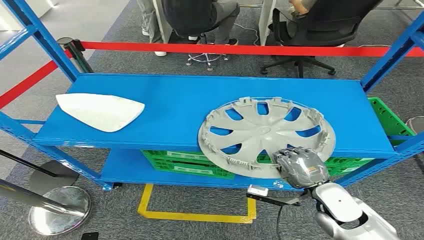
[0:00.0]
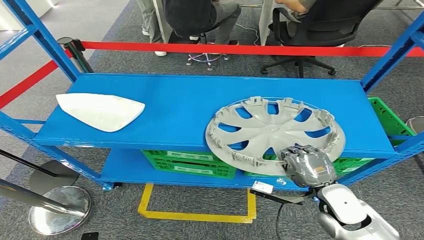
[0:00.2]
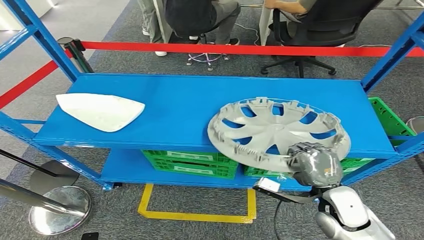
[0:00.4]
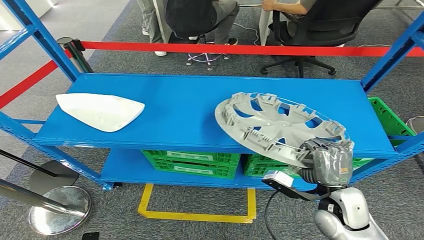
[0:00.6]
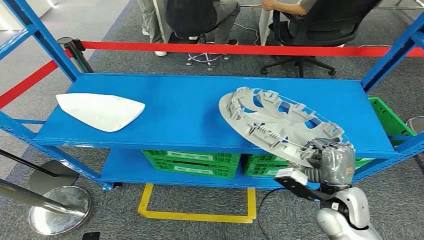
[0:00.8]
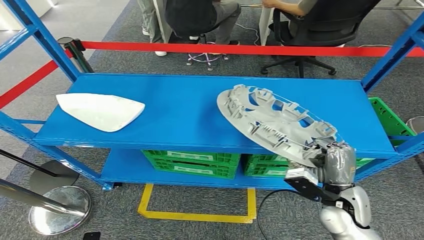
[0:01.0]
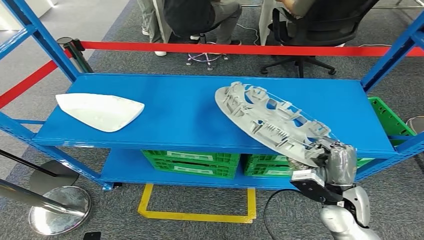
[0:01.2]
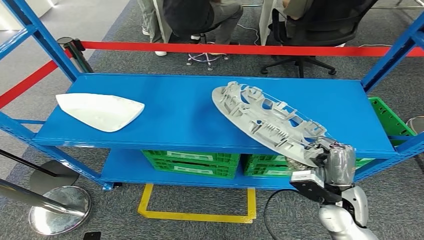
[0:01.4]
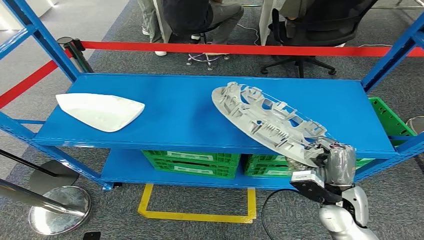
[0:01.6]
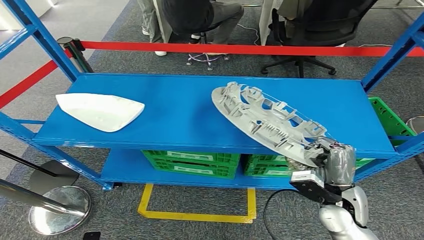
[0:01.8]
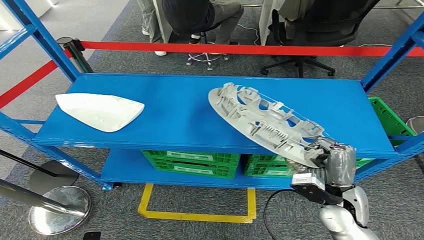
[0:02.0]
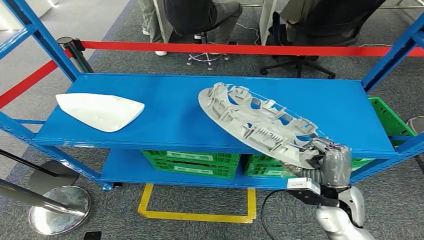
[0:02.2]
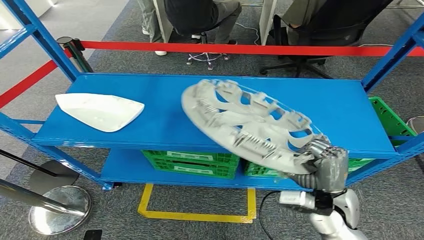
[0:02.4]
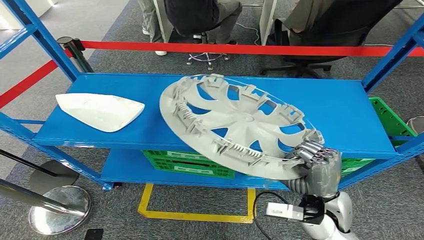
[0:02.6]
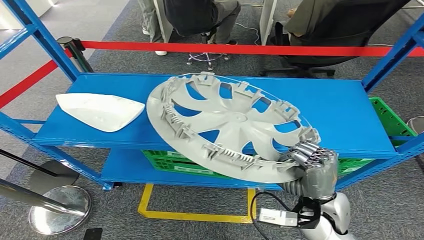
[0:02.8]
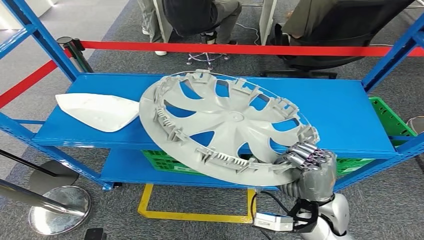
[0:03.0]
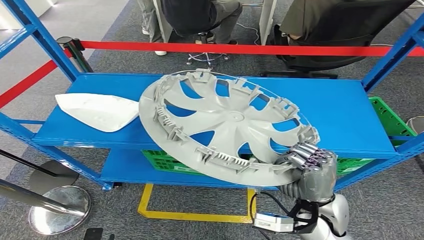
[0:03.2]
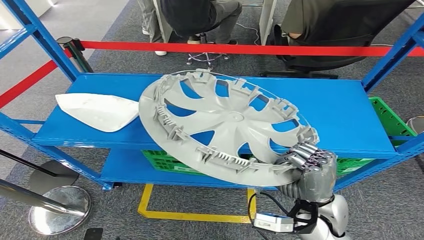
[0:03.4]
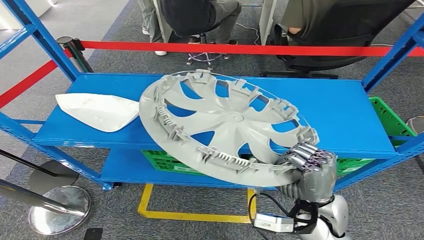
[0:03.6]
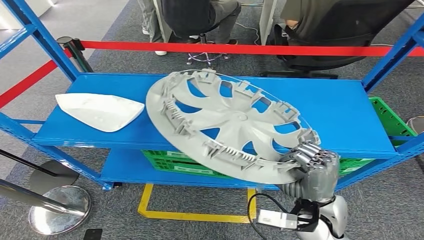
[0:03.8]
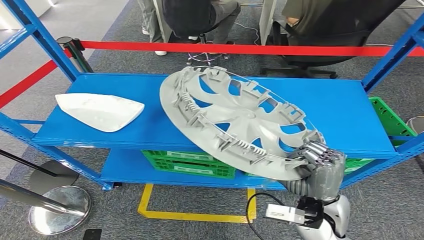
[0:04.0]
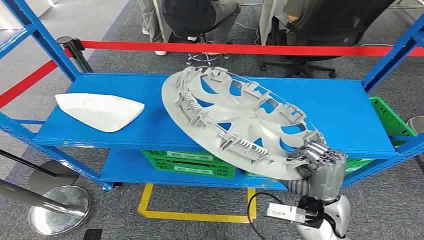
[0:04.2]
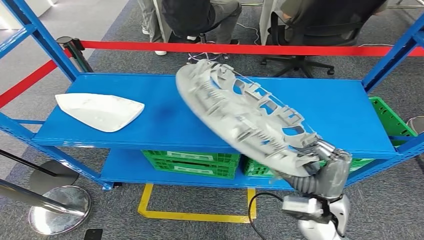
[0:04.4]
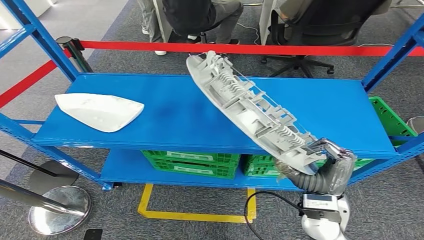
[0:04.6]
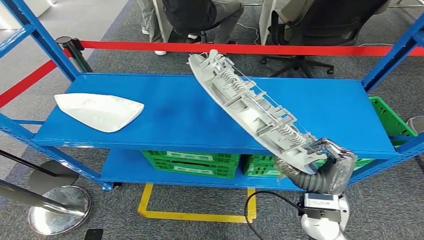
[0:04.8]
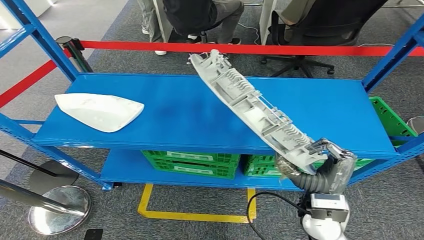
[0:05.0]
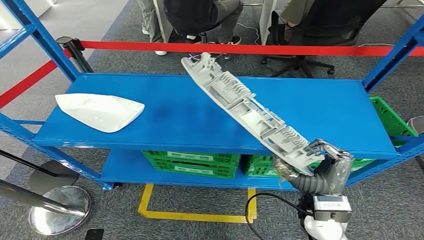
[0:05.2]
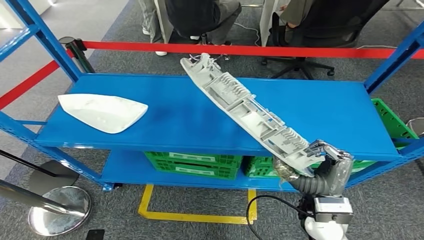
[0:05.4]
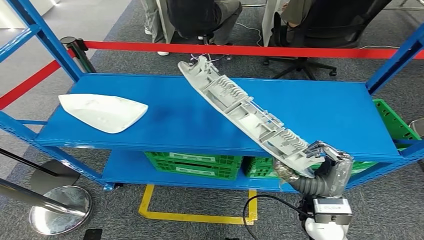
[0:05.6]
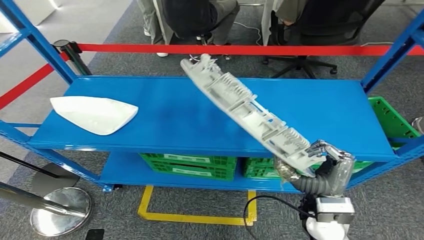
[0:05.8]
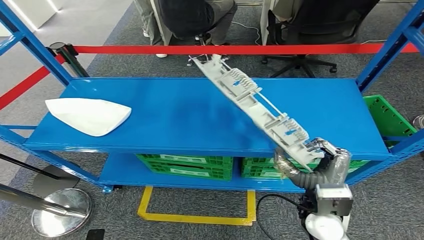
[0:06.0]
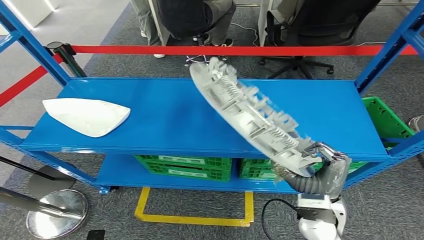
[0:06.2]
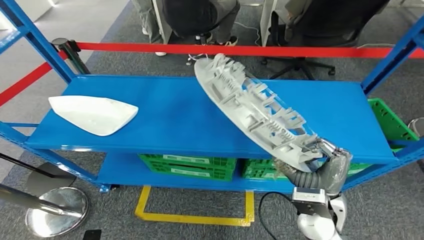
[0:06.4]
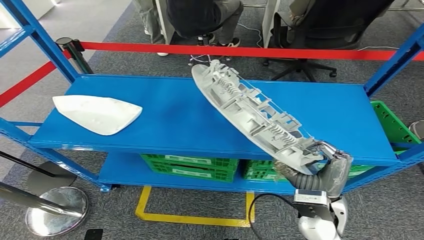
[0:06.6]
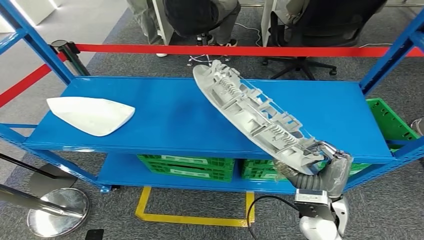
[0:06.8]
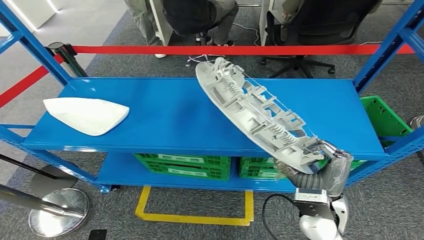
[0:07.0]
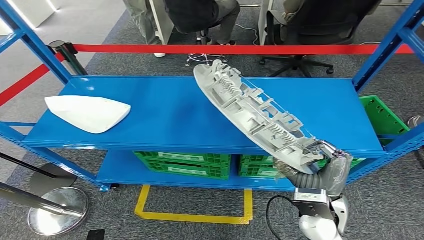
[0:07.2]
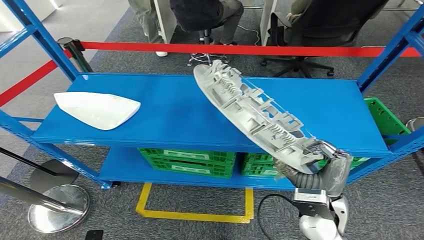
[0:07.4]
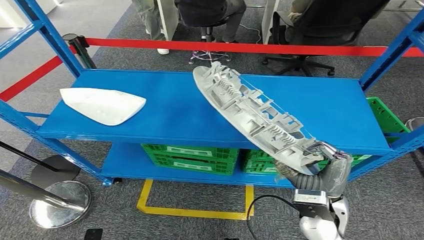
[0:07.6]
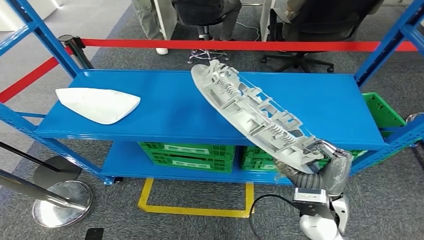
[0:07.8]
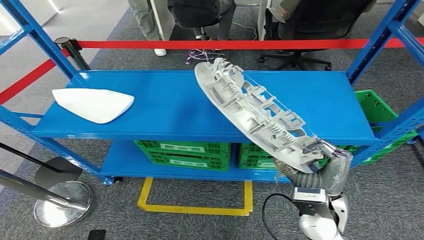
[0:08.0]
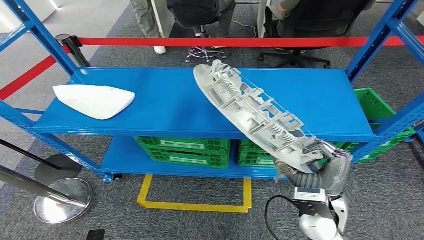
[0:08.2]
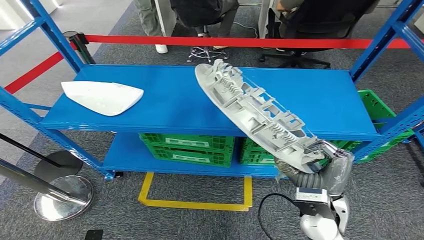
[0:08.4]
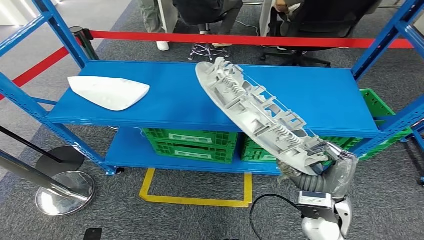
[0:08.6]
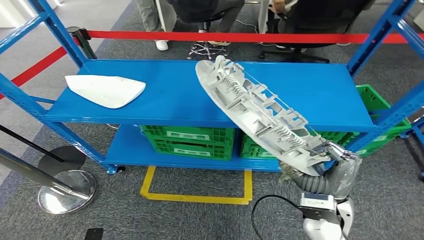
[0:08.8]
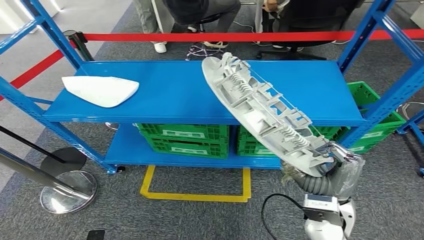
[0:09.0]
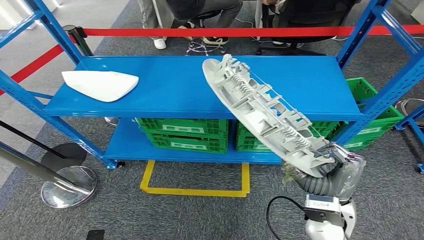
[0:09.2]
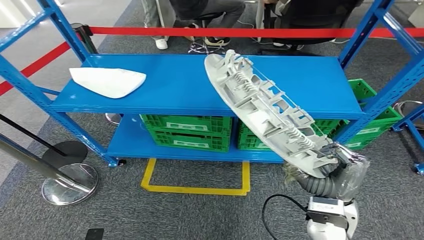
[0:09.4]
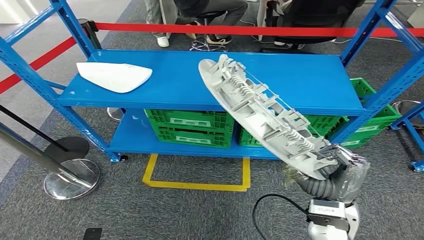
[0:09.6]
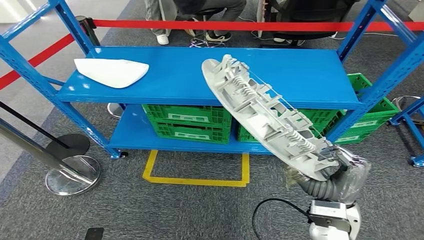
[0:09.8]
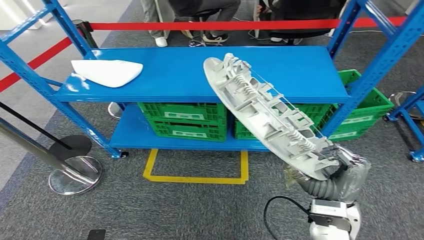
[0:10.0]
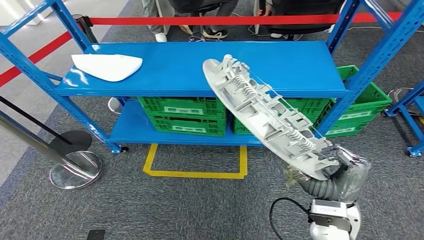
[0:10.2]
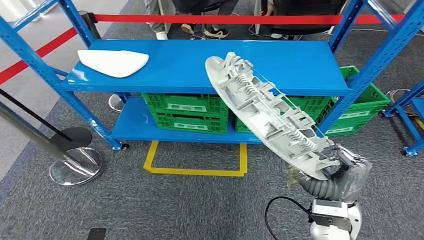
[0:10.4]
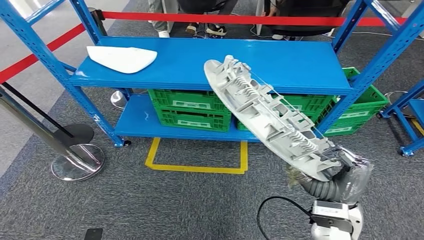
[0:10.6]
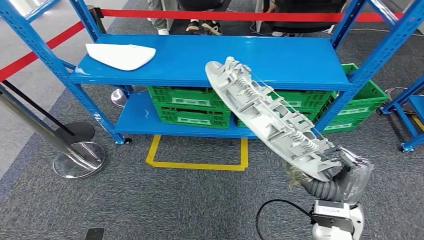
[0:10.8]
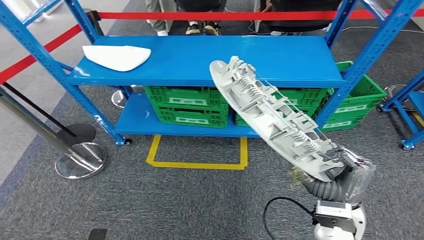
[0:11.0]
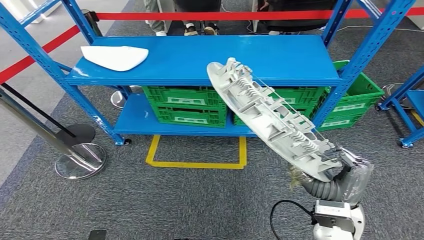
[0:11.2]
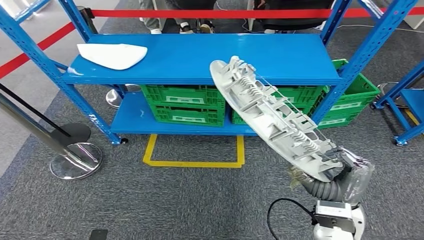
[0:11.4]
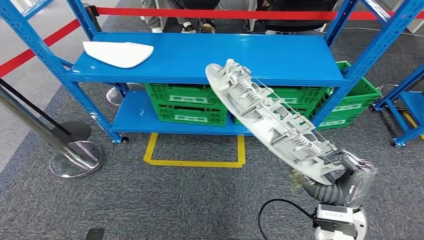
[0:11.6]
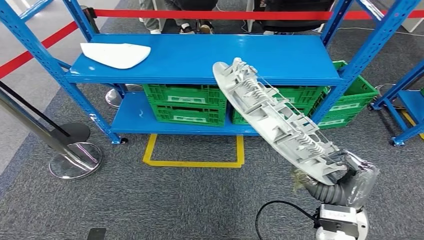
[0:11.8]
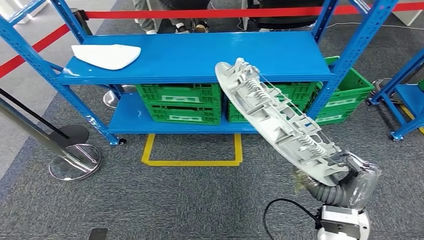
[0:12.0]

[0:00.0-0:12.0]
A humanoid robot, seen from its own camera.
Step, 0:00.0 to 0:10.4: Pick up the small component from the shelf.

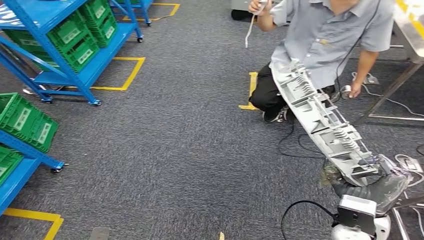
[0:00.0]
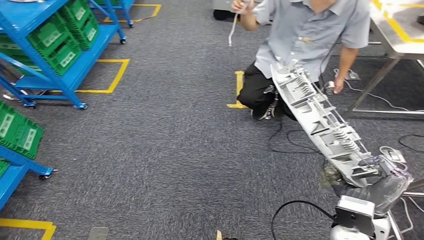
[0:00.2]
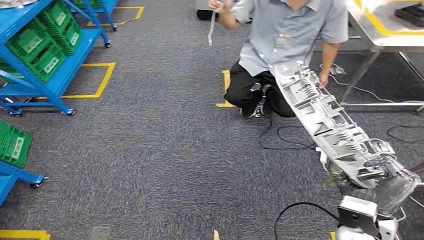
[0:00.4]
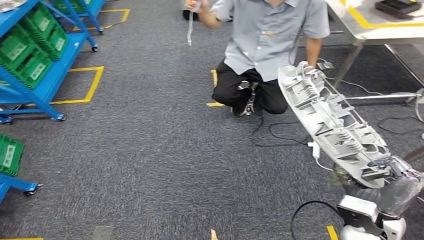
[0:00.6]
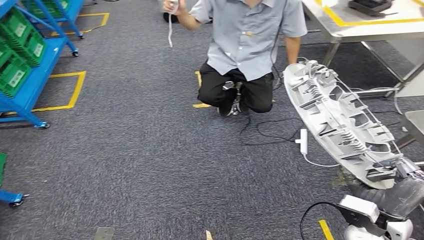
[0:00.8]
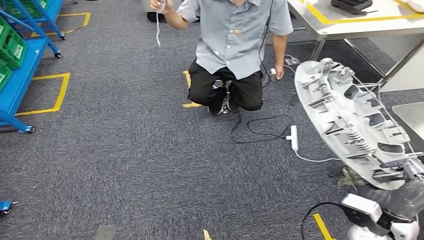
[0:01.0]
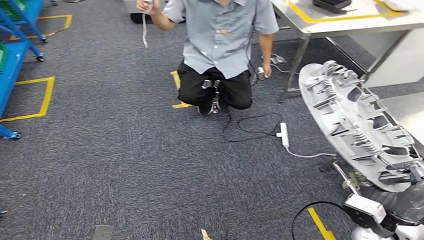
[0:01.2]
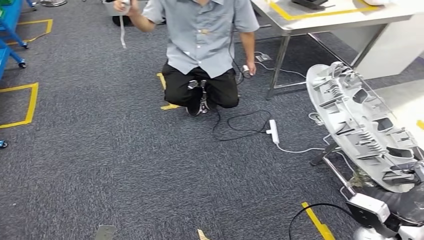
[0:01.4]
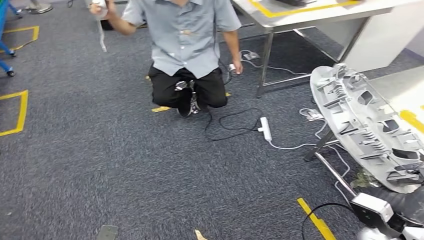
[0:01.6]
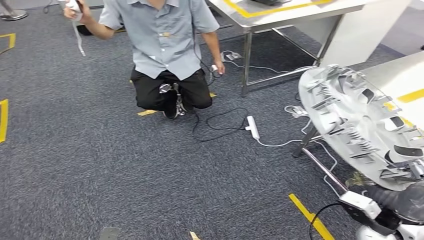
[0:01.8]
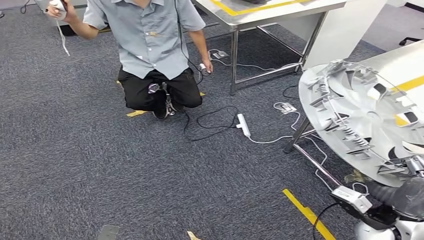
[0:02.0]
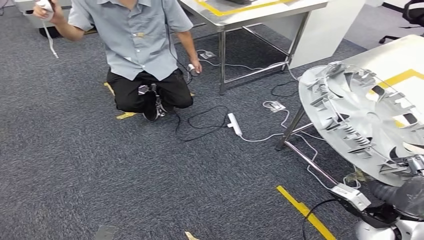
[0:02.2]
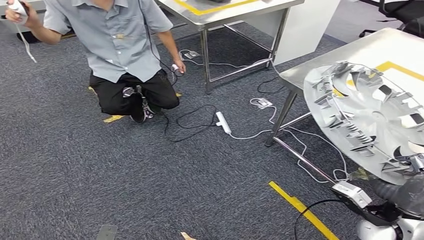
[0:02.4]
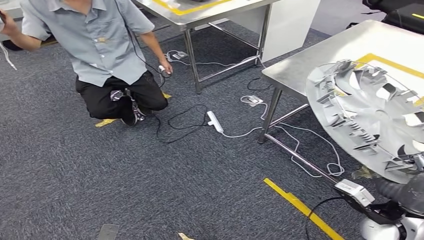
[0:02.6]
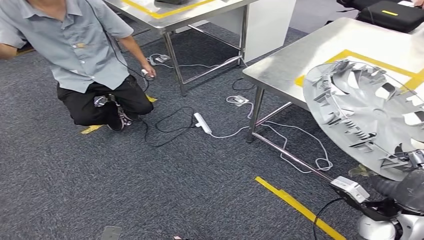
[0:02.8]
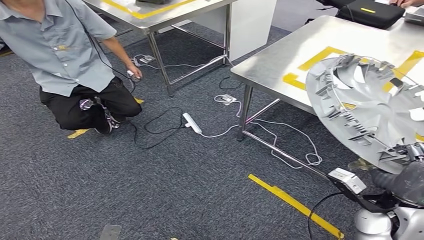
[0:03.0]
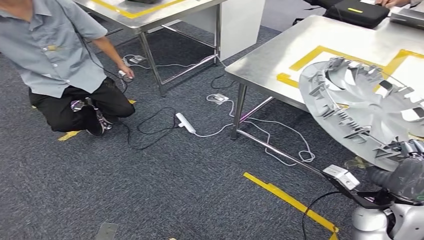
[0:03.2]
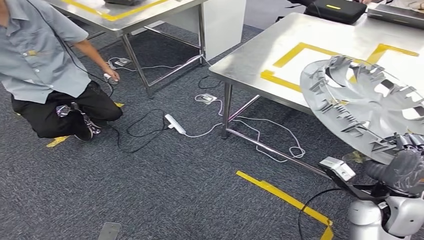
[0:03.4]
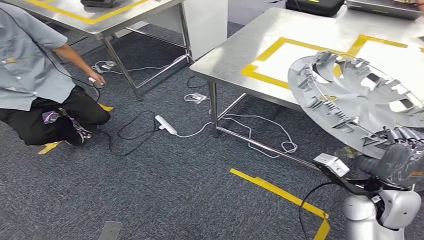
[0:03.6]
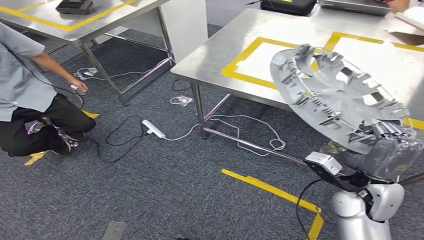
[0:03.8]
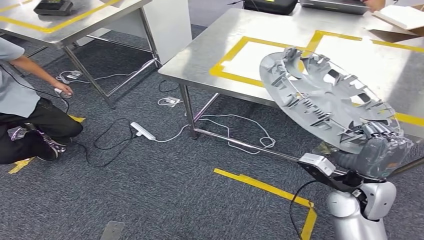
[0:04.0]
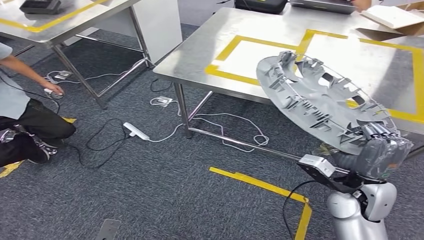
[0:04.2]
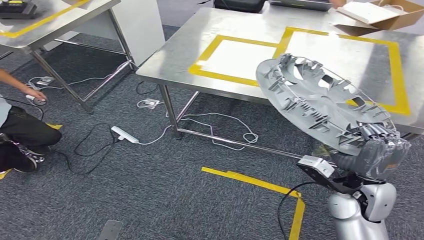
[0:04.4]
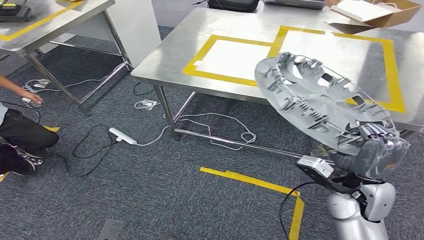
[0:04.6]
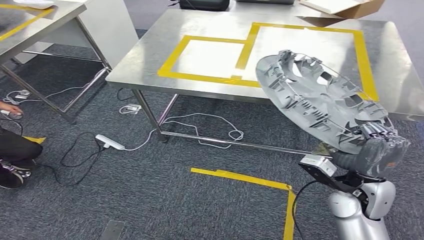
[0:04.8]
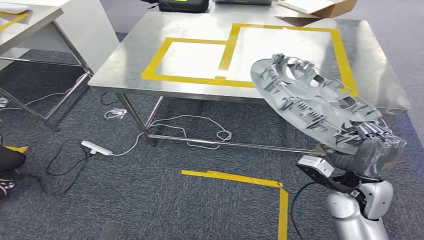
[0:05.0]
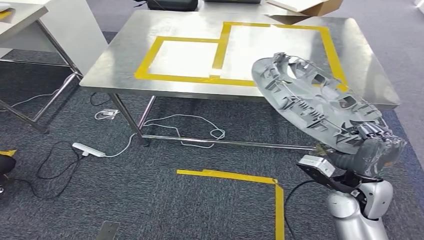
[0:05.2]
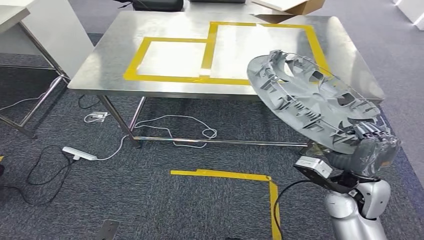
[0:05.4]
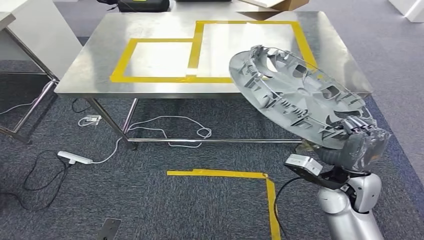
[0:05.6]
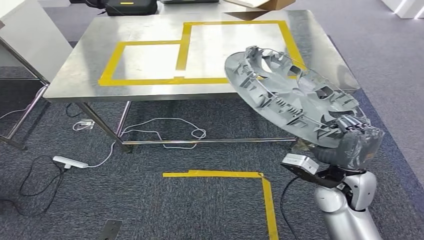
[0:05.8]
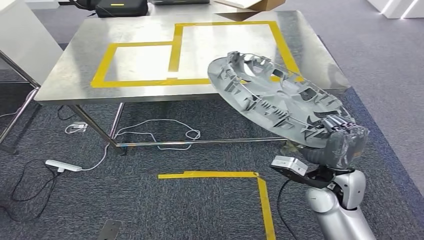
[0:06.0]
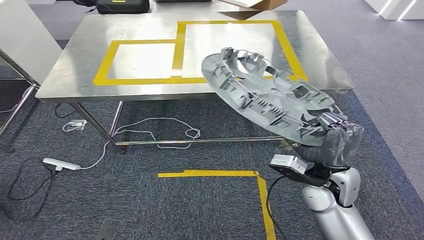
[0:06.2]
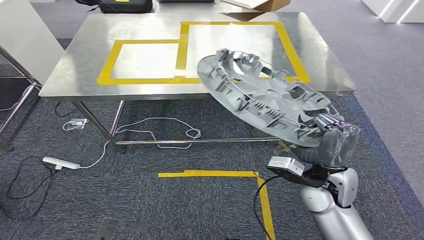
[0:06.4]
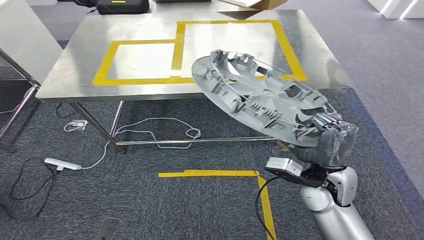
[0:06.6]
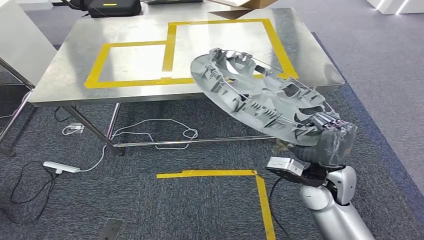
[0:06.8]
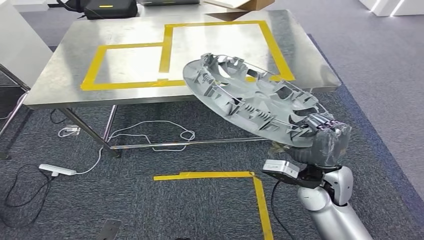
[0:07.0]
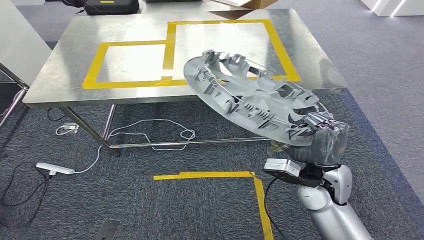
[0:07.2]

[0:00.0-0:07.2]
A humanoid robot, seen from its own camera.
Step, 0:00.0 to 0:06.6: Move the small component to the workbench.
